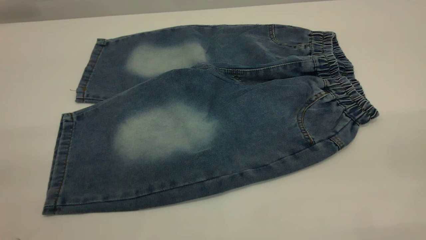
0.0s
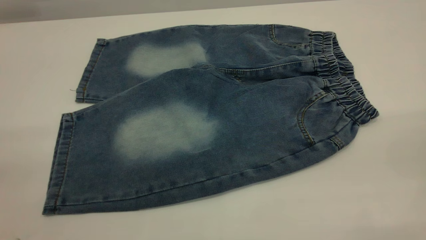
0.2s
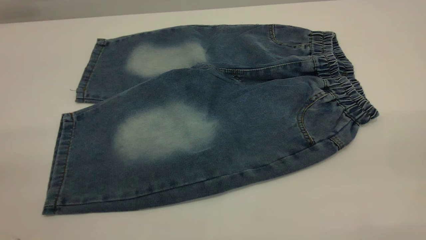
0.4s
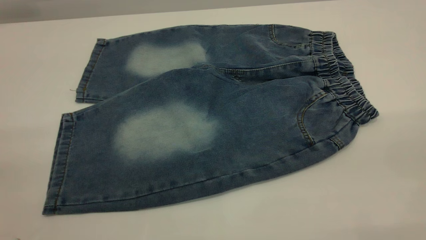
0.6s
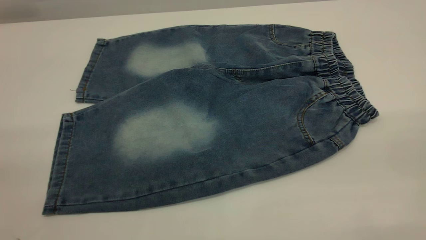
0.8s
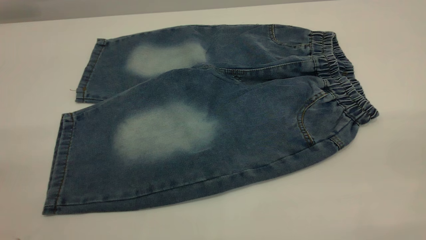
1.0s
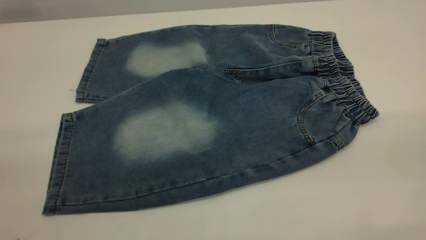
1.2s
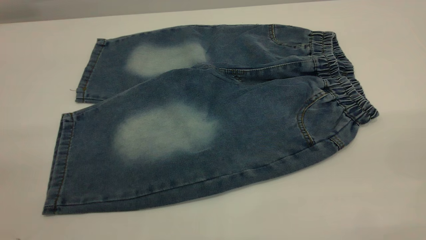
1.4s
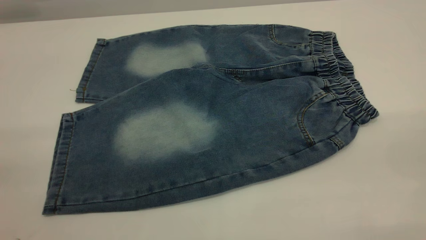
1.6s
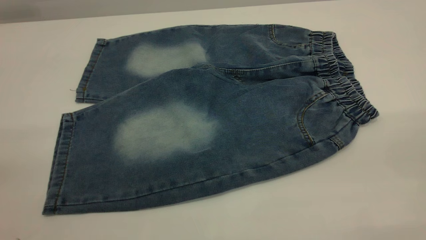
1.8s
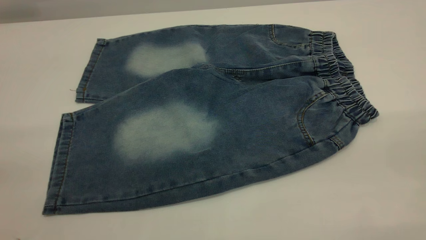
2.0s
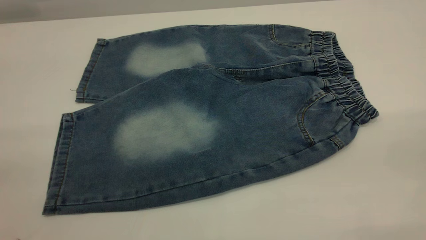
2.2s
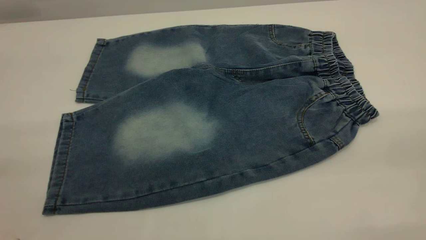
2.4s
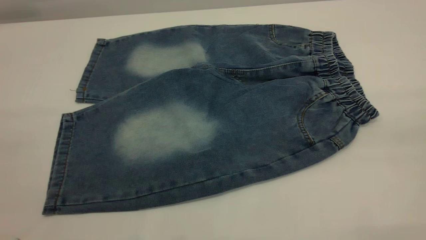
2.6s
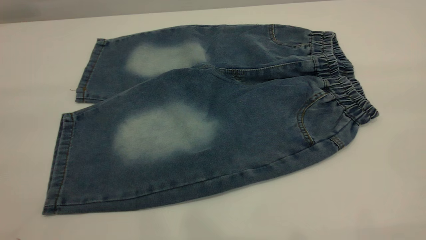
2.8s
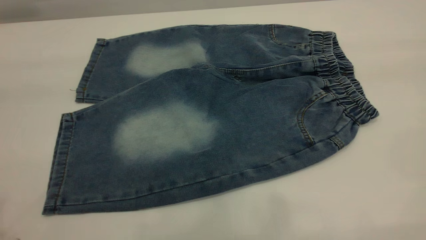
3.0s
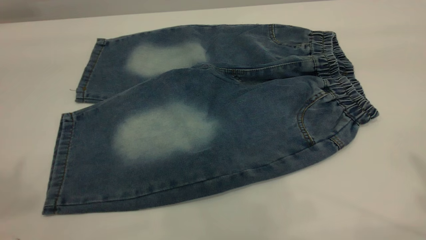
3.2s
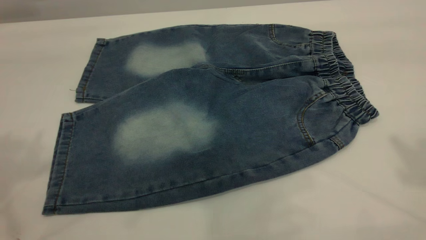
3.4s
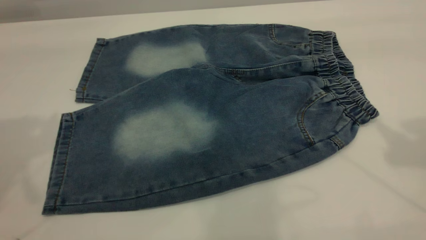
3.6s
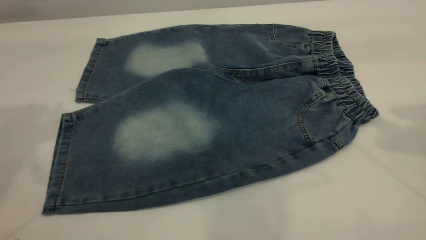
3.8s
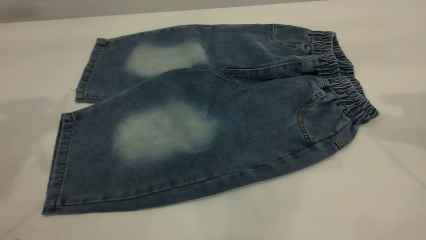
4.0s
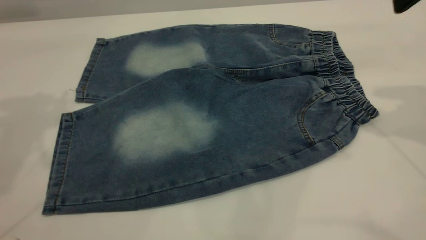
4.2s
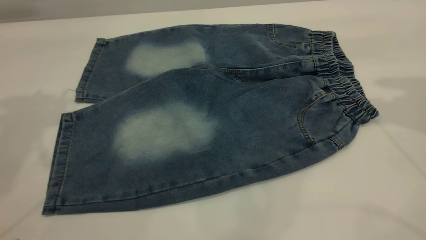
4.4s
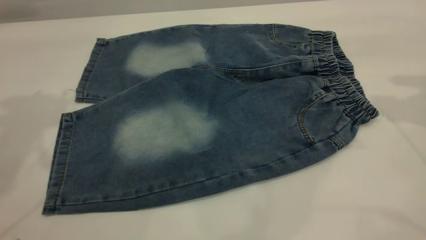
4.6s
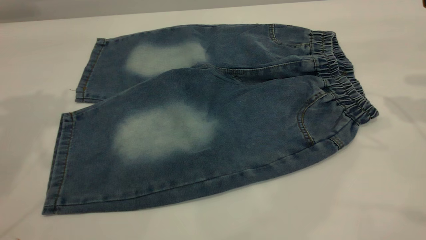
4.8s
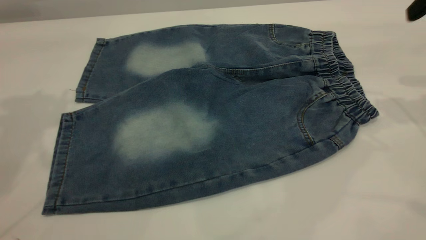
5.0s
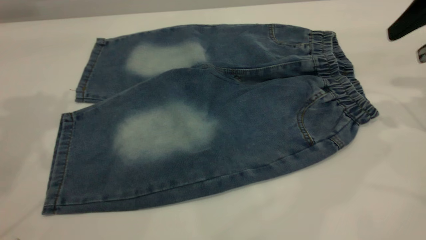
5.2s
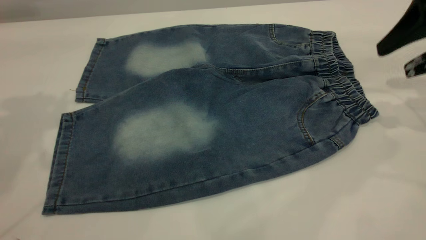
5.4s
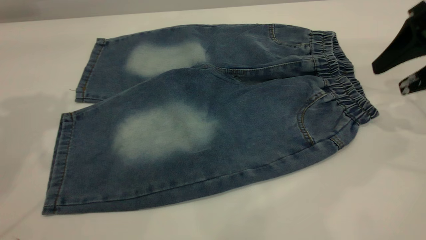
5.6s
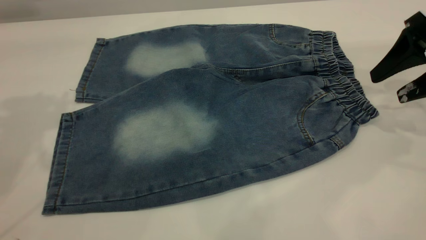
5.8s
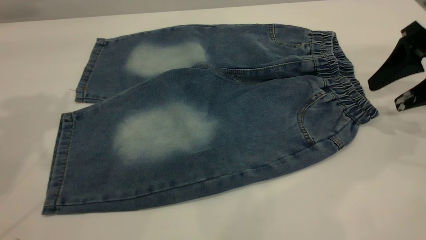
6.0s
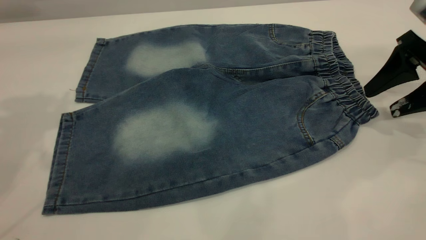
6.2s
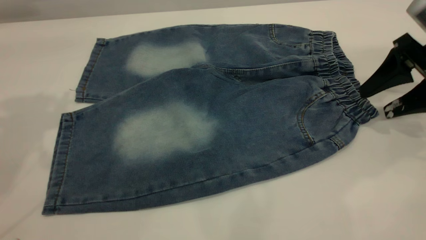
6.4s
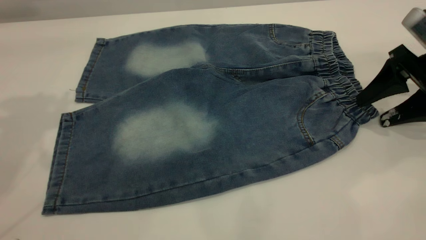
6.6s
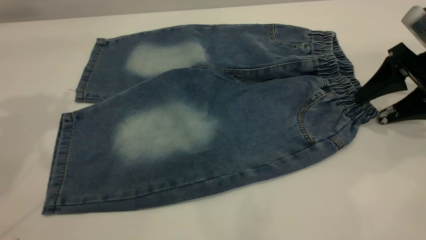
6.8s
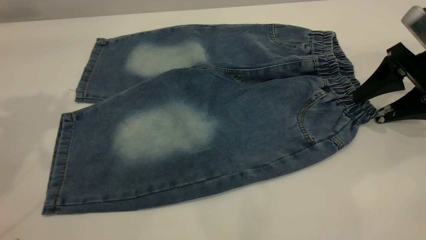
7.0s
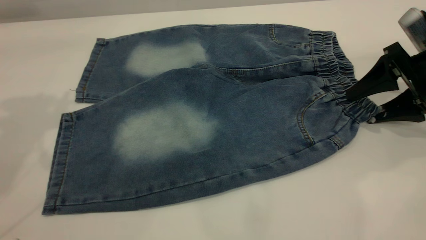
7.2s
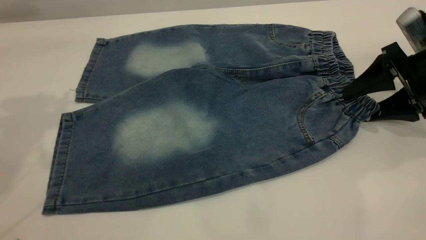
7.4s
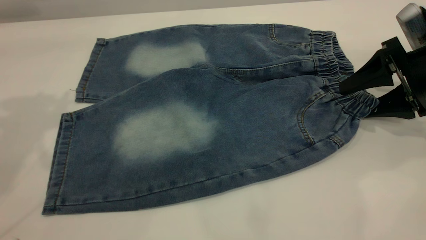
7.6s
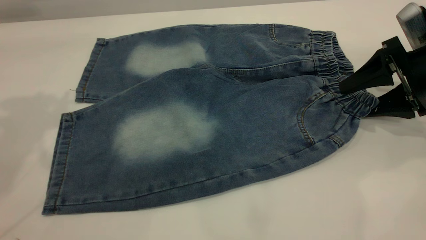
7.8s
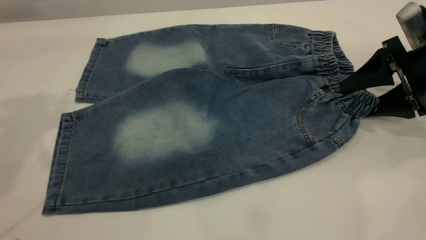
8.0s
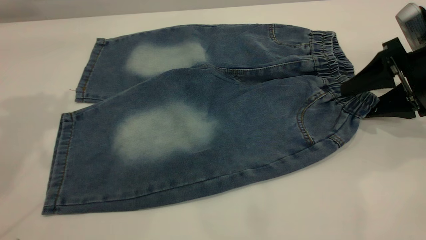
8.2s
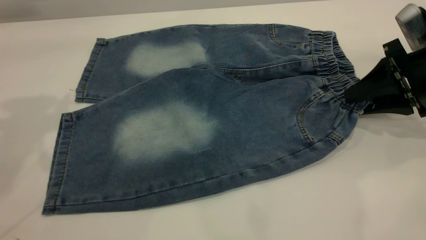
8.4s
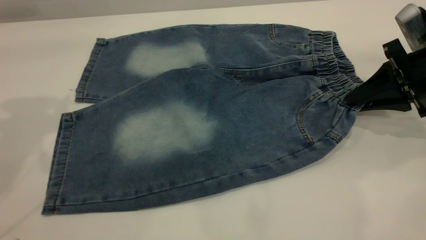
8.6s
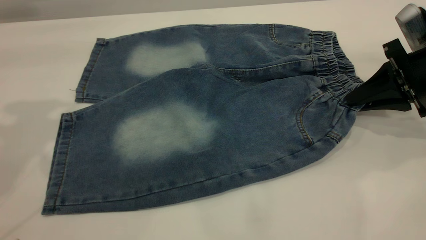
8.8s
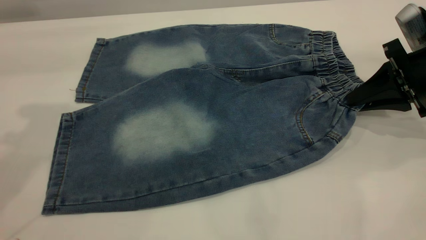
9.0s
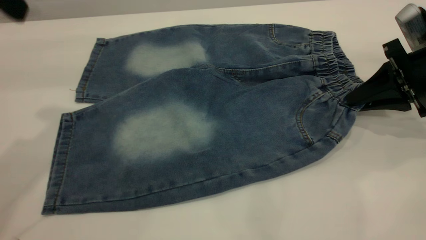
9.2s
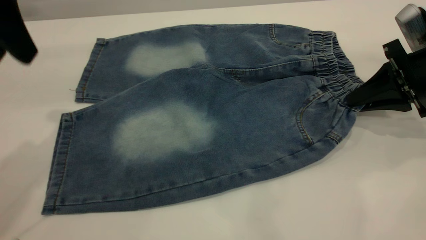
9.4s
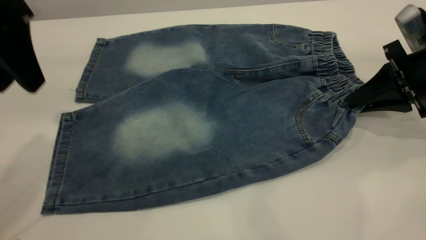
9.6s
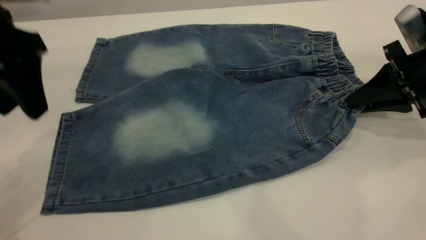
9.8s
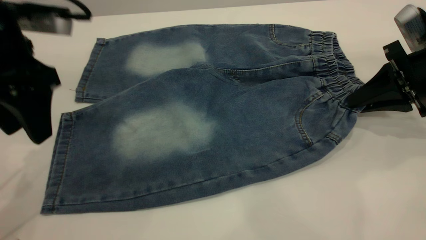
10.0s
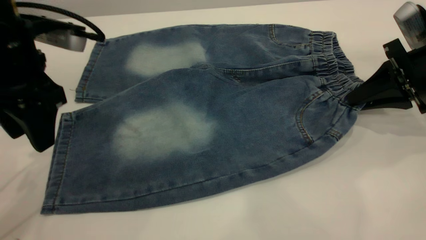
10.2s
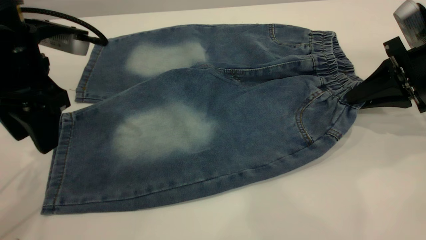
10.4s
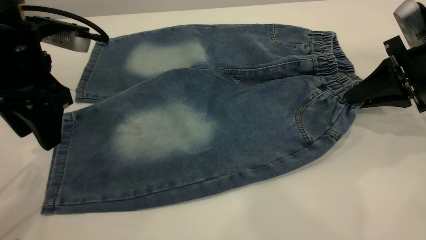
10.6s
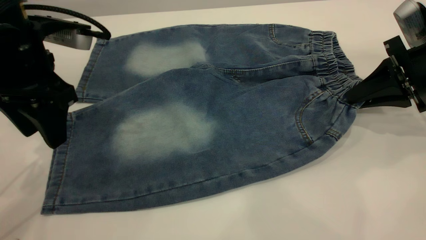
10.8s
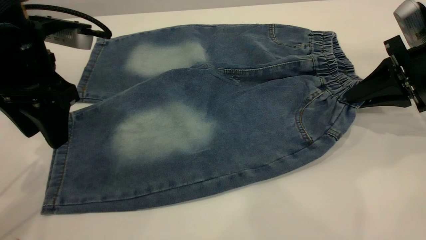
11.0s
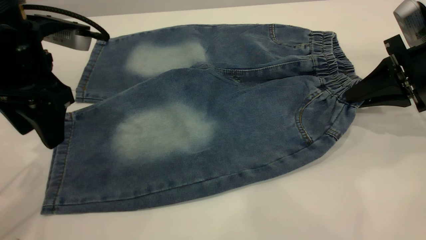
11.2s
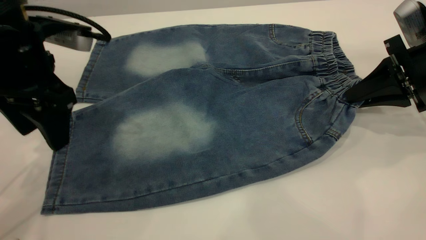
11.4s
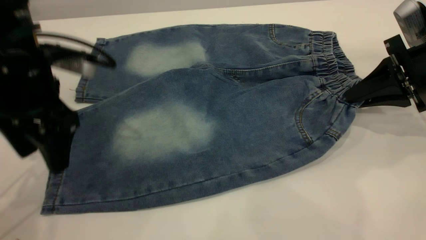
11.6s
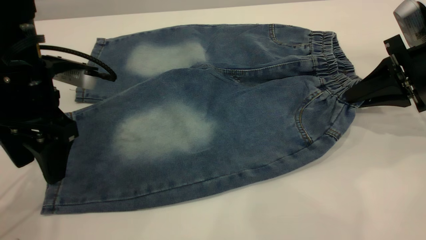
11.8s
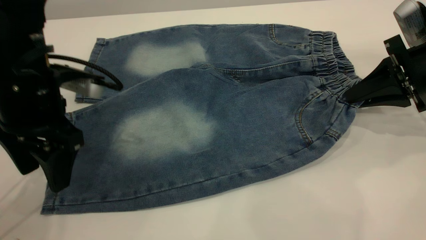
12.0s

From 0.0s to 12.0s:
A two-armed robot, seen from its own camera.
From 0.0s to 1.6s: The two grippers keep their place.
From 4.4s to 6.0s: The right gripper shifts about 15 cm downward.
From 6.0s to 7.6s: There are only small adjustments of the grippers.
From 7.6s to 9.0s: The right gripper closes up.
From 9.0s to 10.4s: The left gripper is displaced downward by some 15 cm.
From 10.4s to 12.0s: The left gripper goes some 5 cm downward.

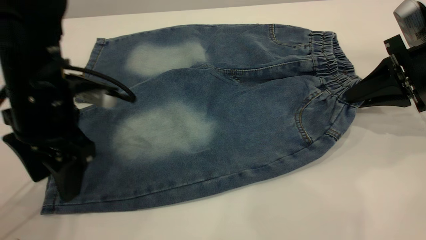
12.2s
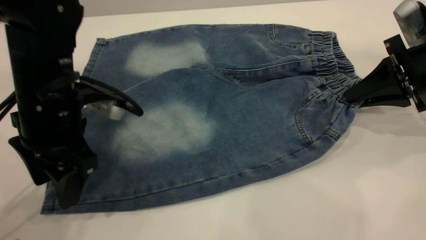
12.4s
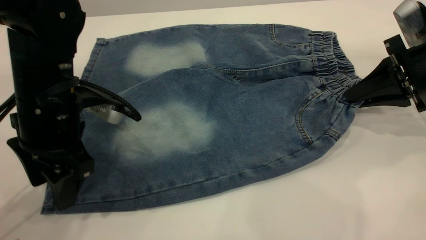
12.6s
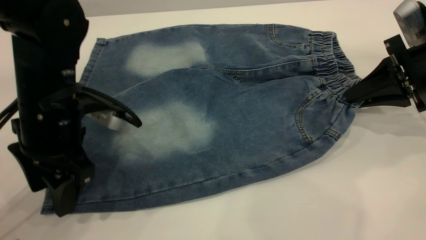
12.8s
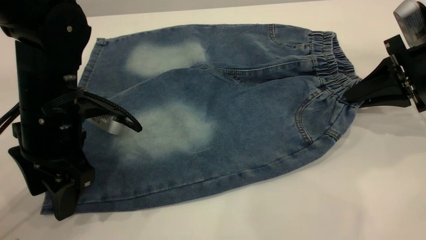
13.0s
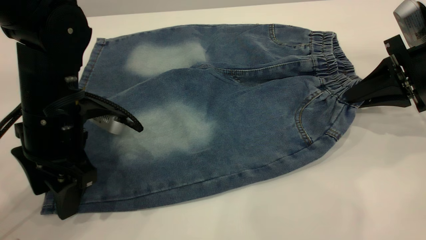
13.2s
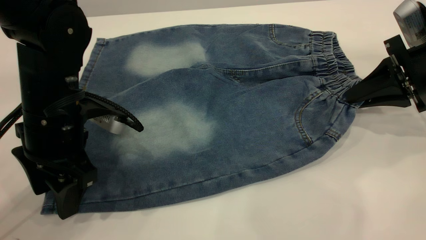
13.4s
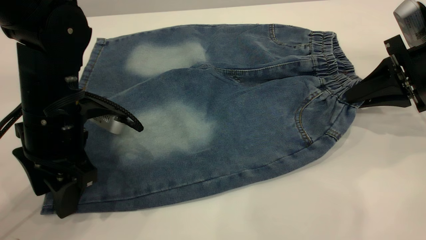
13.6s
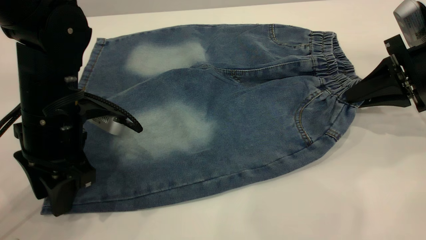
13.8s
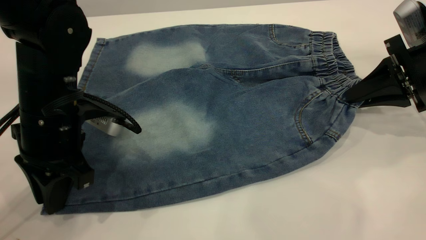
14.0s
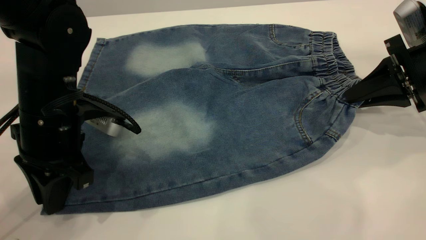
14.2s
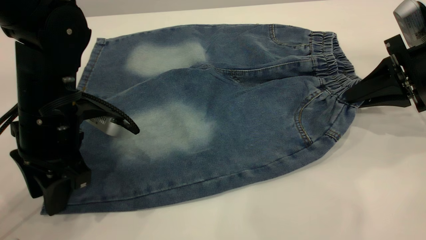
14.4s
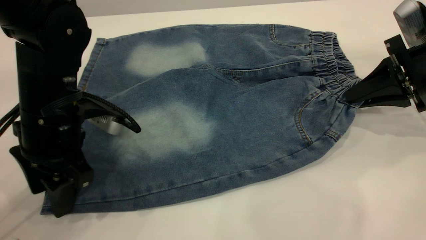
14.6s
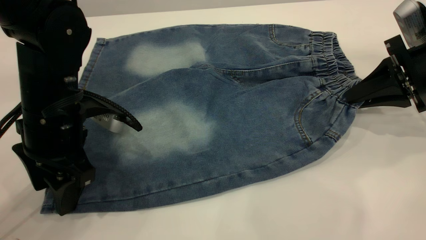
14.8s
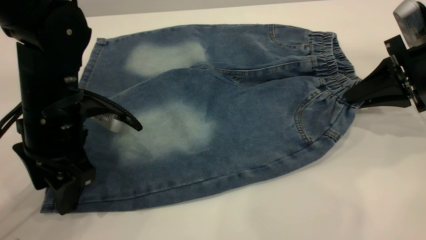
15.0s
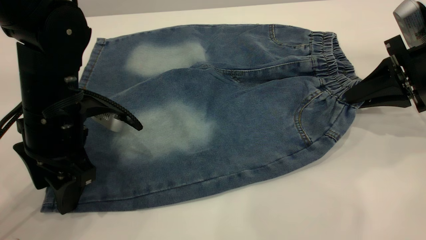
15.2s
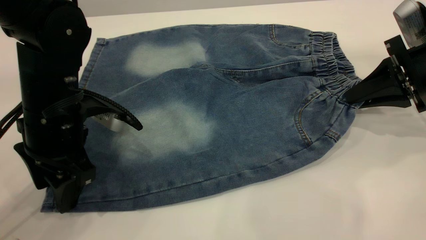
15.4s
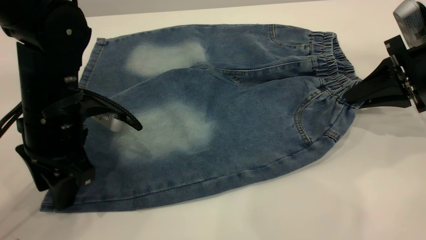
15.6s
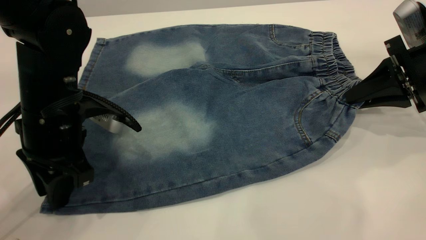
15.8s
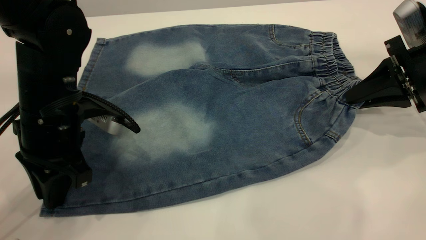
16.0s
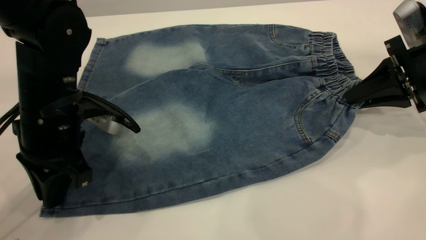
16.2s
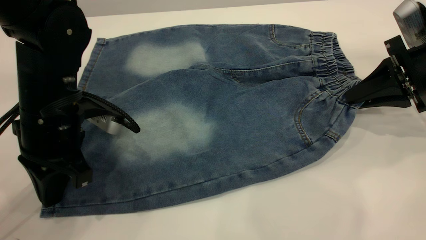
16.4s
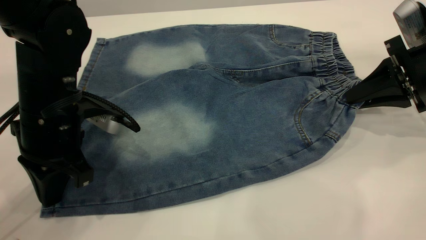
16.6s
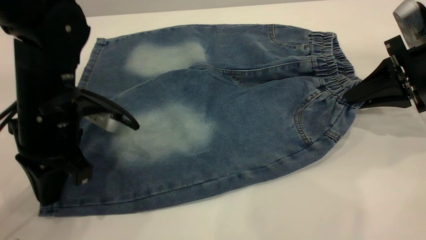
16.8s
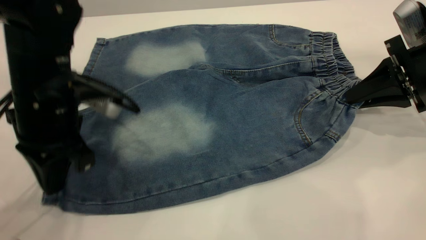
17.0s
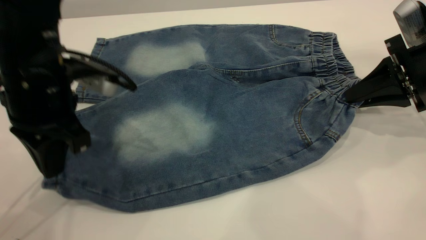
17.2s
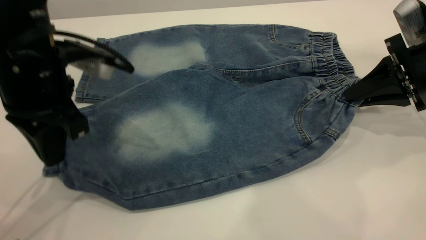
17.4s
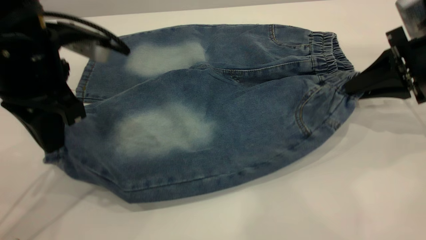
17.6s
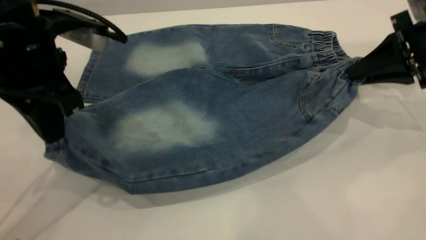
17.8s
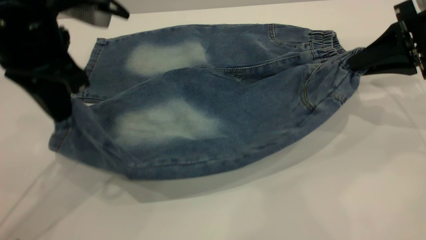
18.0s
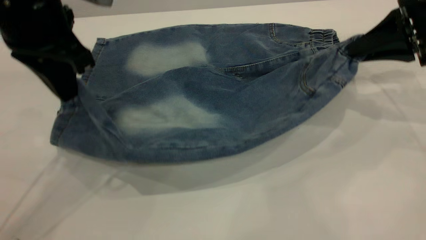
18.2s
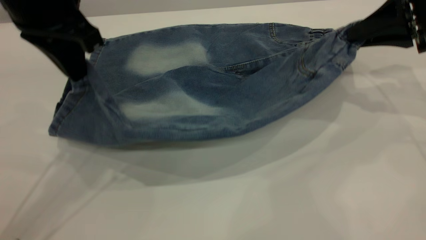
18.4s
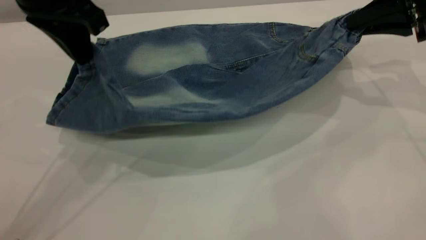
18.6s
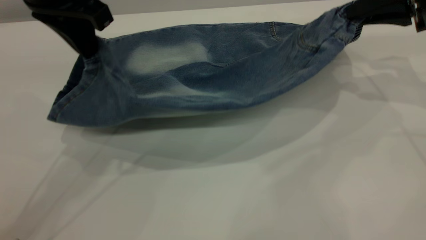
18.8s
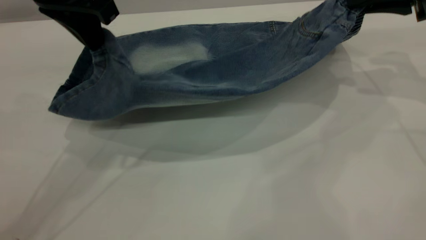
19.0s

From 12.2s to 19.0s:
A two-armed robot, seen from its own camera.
From 12.2s to 13.6s: The grippers move only a little.
From 13.6s to 15.0s: The left gripper closes, then opens again.
From 15.0s to 16.2s: The left gripper closes its fingers.
From 16.2s to 17.6s: The left gripper travels upward by approximately 10 cm.
From 17.6s to 19.0s: The grippers both shift upward and forward by some 10 cm.
